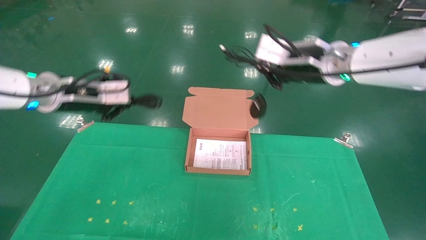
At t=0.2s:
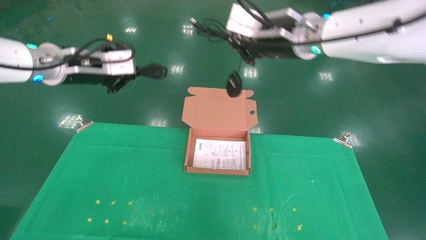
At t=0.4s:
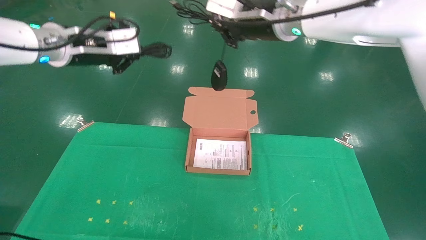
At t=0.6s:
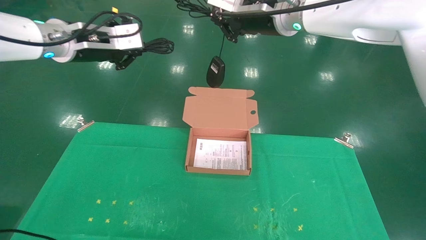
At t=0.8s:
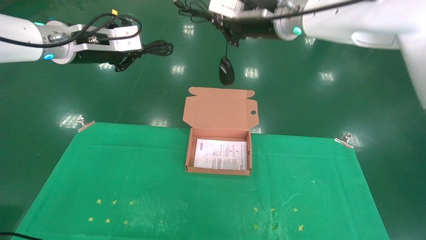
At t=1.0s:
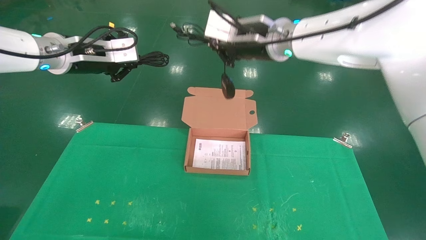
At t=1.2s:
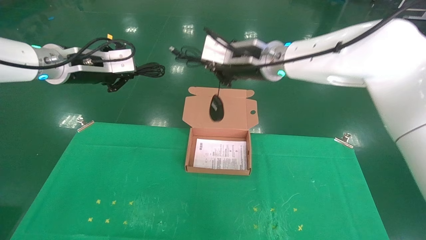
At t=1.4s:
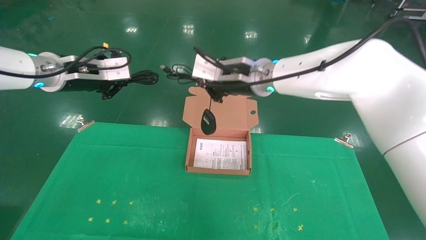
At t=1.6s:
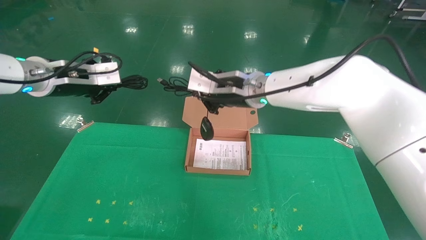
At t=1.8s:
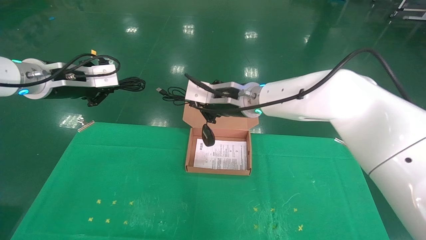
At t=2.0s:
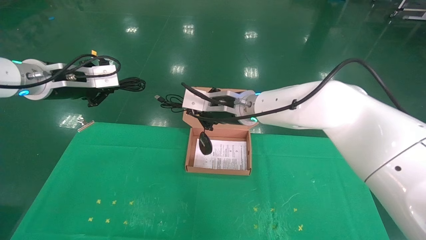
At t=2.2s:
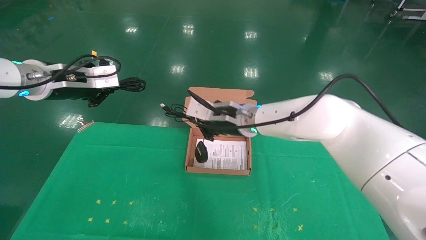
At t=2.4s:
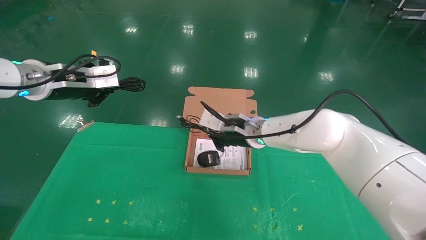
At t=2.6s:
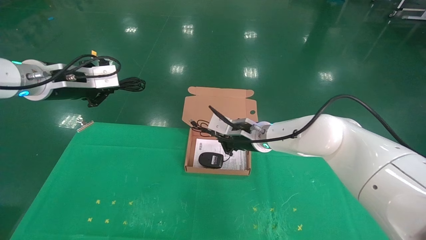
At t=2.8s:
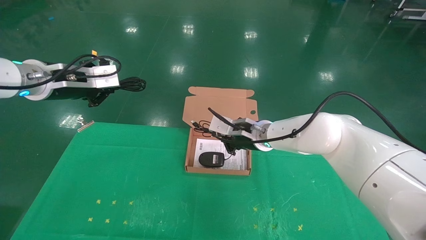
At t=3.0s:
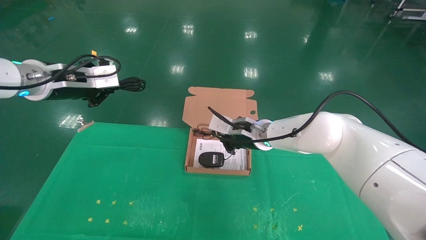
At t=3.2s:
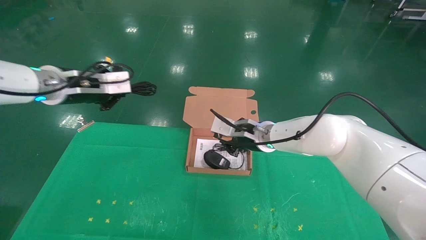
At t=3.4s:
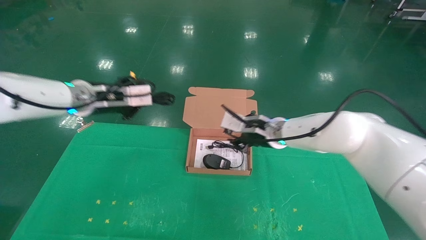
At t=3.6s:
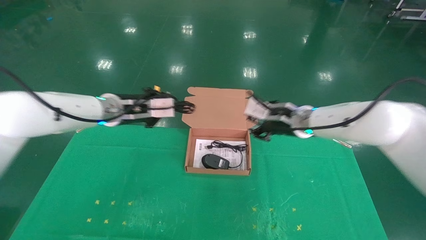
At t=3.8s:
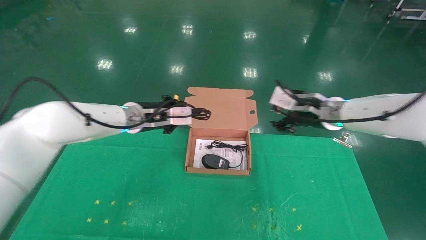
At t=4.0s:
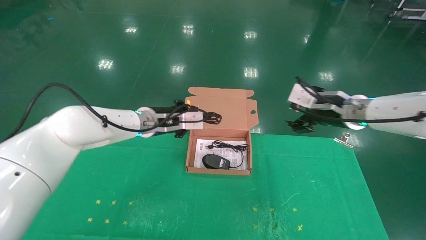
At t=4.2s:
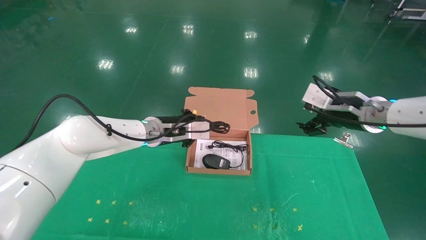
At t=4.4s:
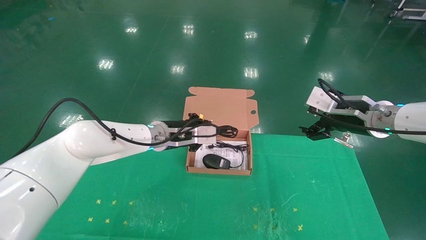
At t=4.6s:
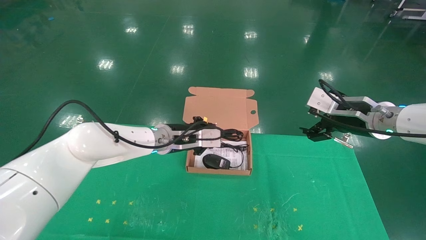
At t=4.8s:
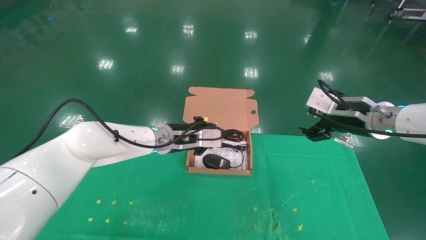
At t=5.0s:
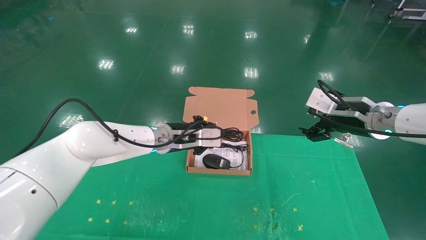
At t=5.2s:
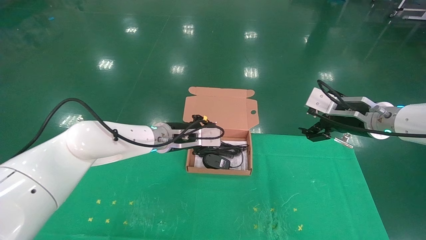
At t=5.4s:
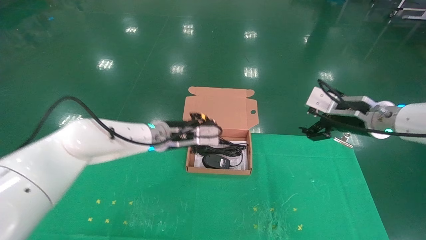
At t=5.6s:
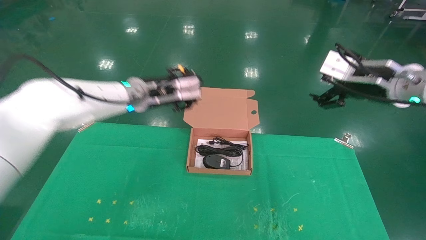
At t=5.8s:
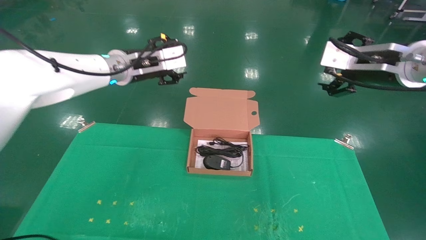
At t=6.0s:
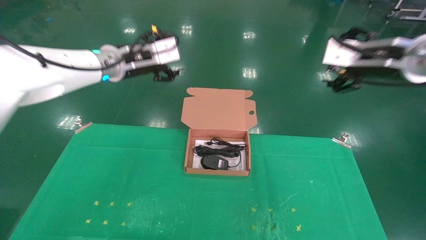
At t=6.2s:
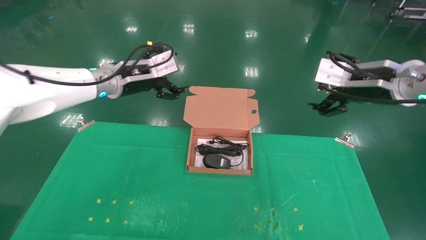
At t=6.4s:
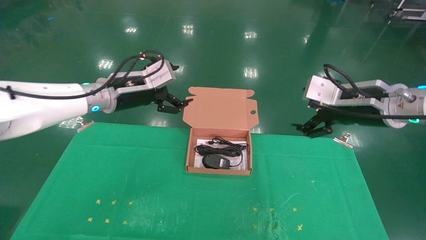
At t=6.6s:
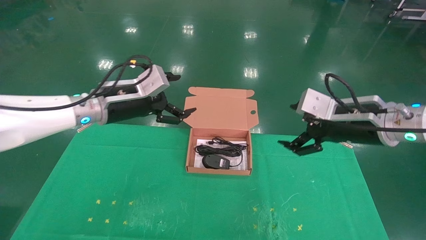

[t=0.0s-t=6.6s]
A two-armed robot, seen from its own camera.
Task of the whole recording: grasp data cable left put into box grasp mouse right put into box.
Step, t=0.0s to t=5.2s: Place the mouse and power cord into the box.
t=0.0s to t=1.6s: The left gripper moves some 10 cm upward and comes back, while the right gripper moves to the left and downward, approximately 15 cm.
t=1.6s to t=3.2s: The right gripper is displaced downward and to the right by about 10 cm.
t=3.2s to t=5.0s: The right gripper shifts approximately 20 cm to the right, and opens up; the left gripper goes approximately 20 cm to the right and downward.
t=5.0s to t=6.6s: The left gripper shifts roughly 15 cm to the left, upward and backward, and opens up; the right gripper travels backward by some 5 cm, and reaches about 10 cm upward, then returns.
